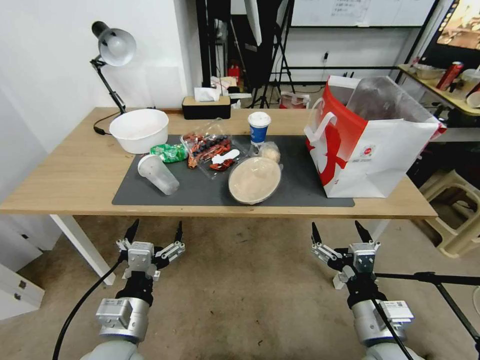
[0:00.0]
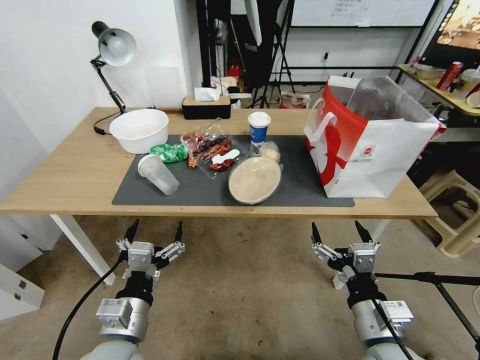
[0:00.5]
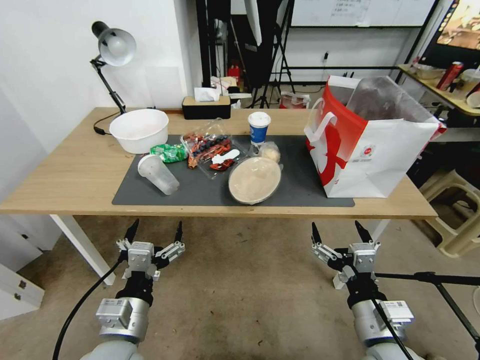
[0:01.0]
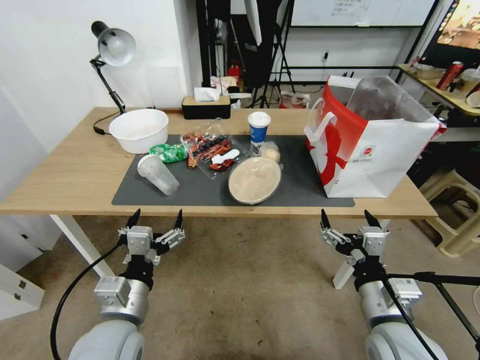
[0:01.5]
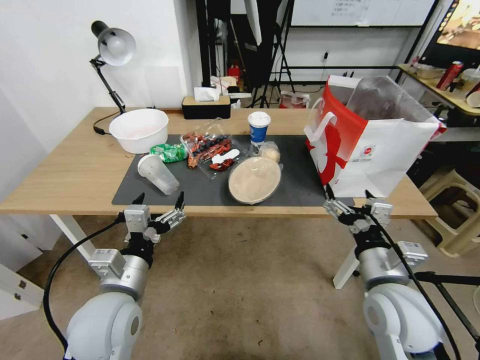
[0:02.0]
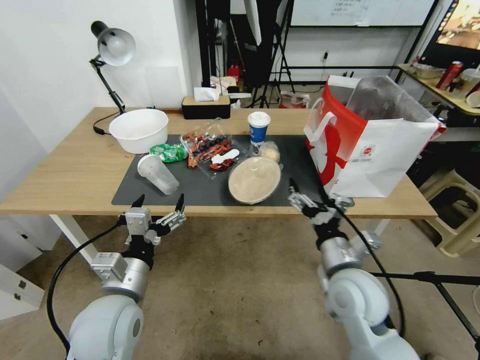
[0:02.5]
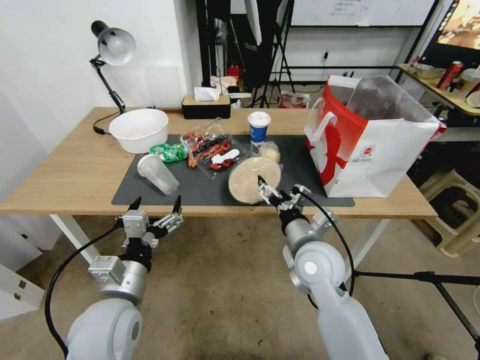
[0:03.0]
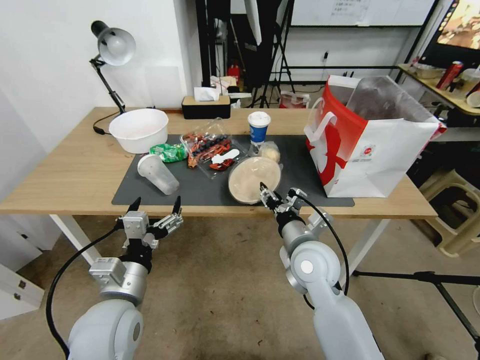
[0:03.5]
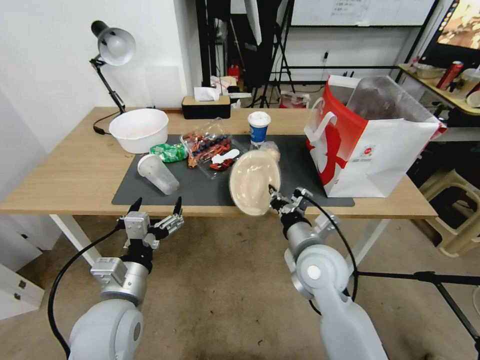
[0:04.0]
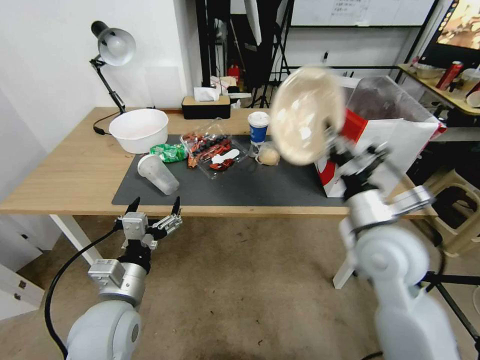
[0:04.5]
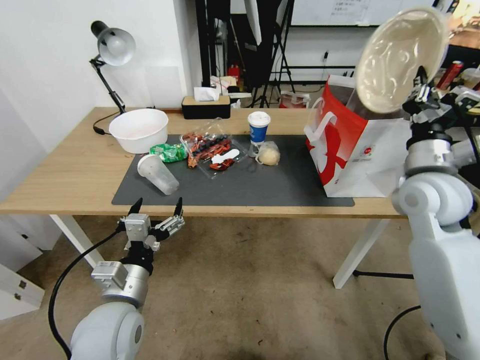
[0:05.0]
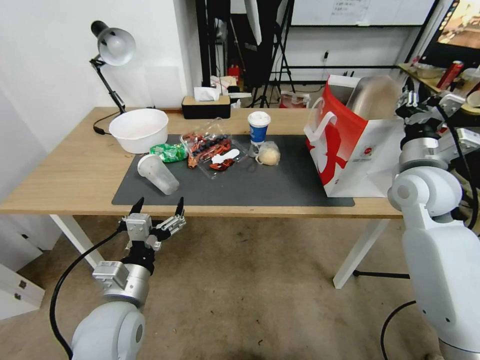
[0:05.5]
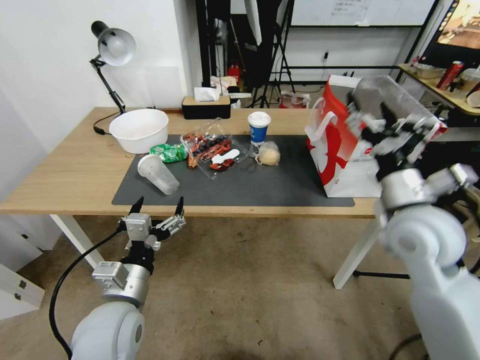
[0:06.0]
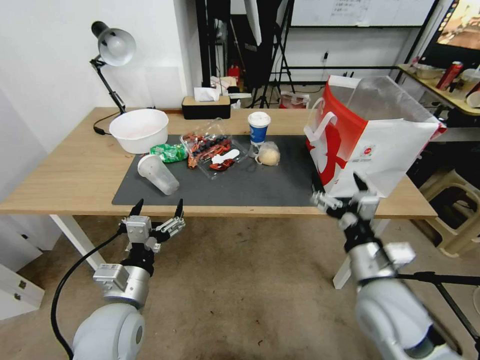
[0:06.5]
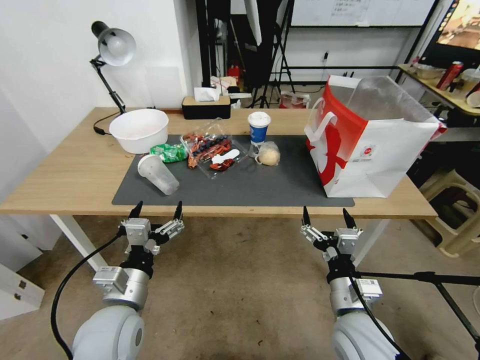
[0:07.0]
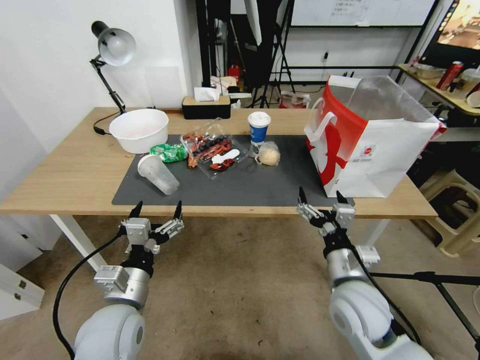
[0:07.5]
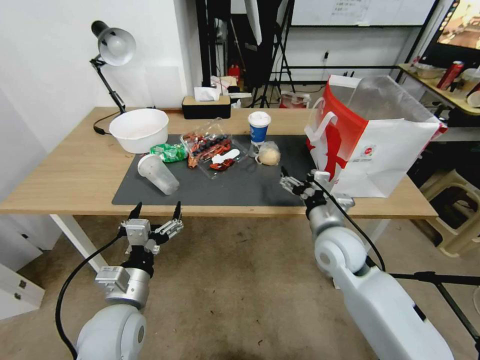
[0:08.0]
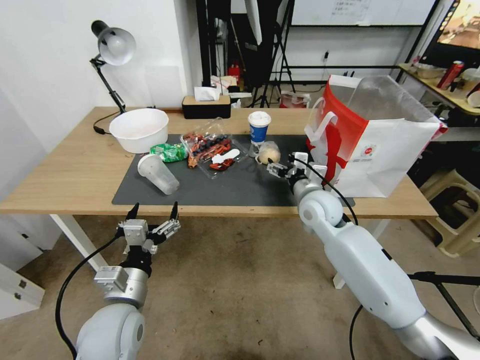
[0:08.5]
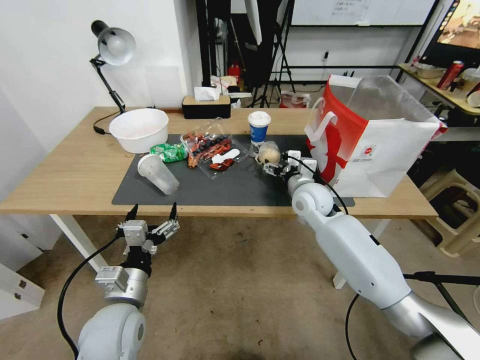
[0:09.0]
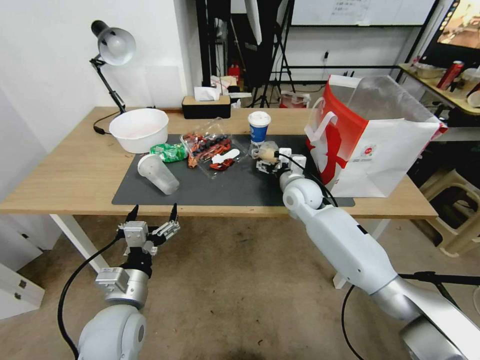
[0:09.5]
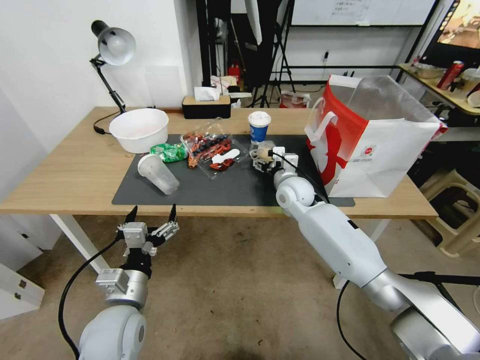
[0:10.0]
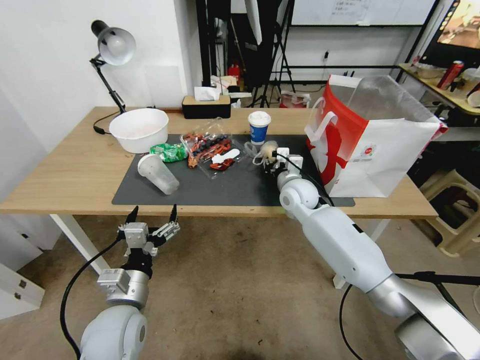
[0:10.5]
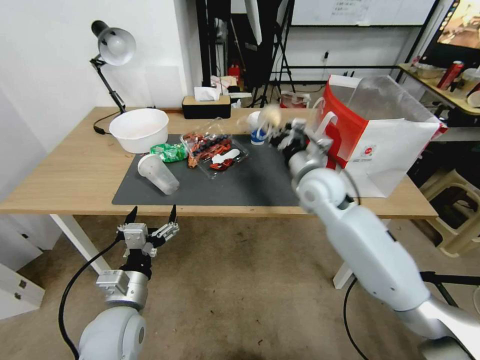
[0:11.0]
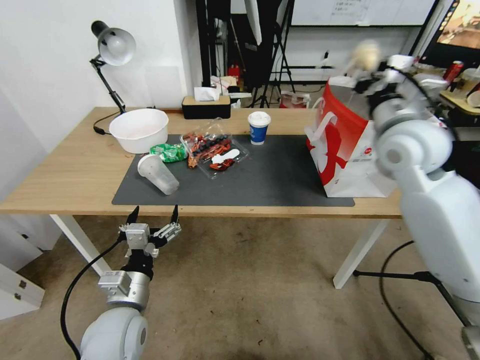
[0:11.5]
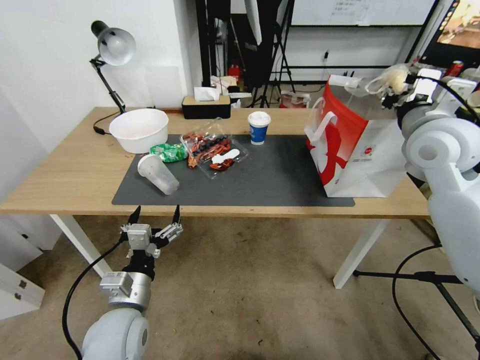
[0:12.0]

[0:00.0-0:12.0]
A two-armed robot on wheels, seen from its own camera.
0:02.0 to 0:04.0: The right gripper heads to the left and forward, covering roughly 15 cm, and closes up.
0:04.0 to 0:06.0: The right gripper goes some 20 cm to the right and upward, and opens its fingers.
0:06.0 to 0:08.0: The right gripper goes roughly 15 cm downward and to the left.
0:08.0 to 0:10.0: The right gripper moves forward, some 15 cm.
0:10.0 to 0:12.0: The right gripper travels upward, to the right and backward by some 30 cm, and closes.

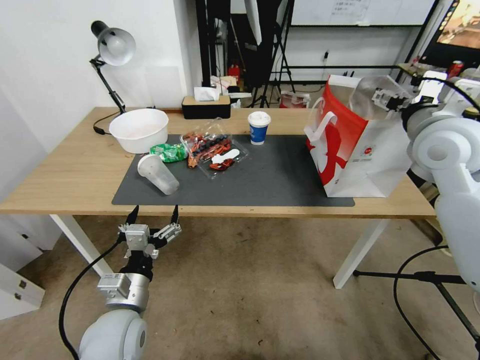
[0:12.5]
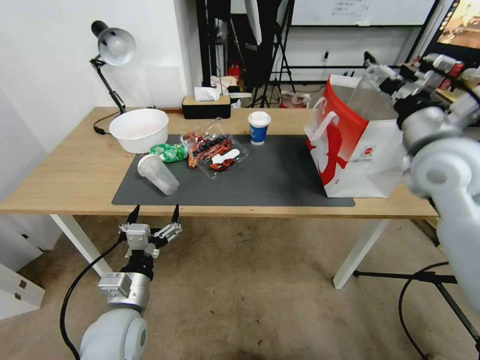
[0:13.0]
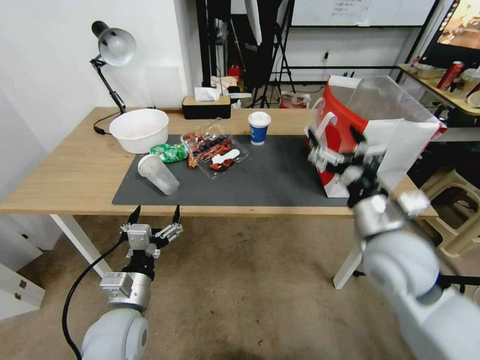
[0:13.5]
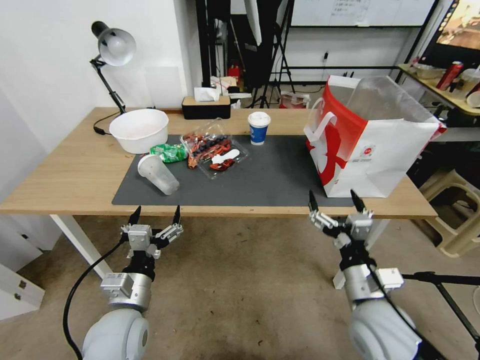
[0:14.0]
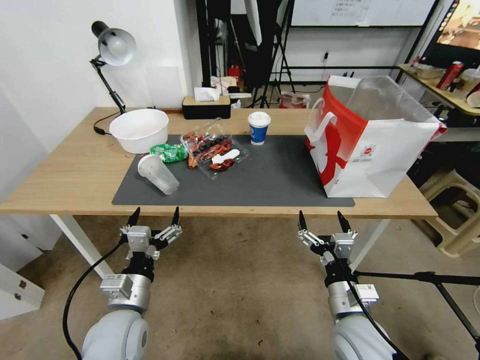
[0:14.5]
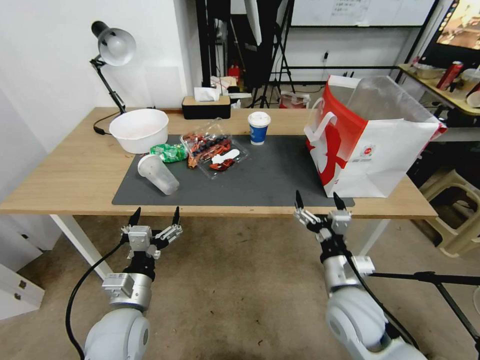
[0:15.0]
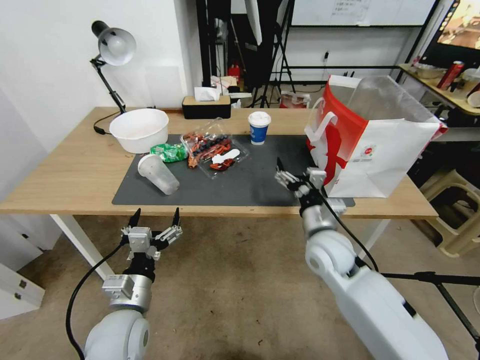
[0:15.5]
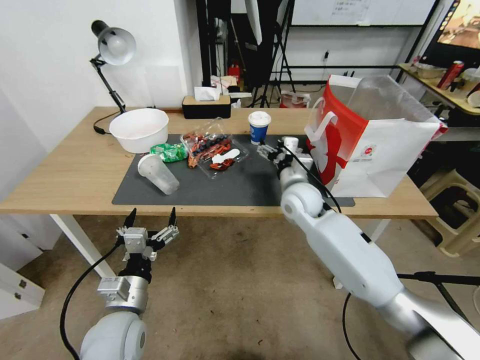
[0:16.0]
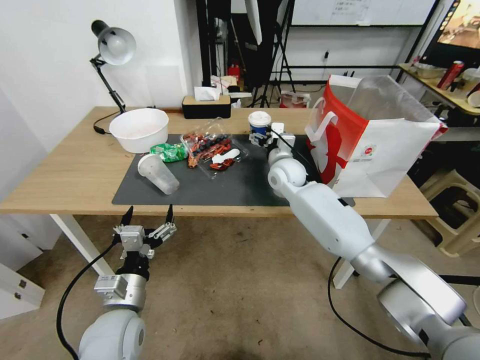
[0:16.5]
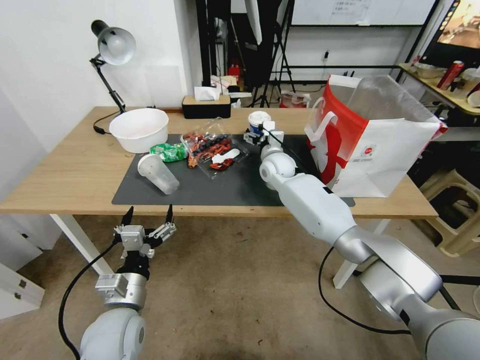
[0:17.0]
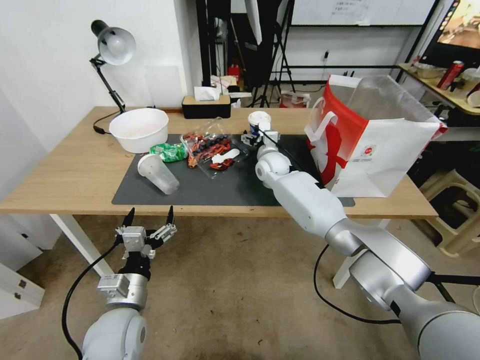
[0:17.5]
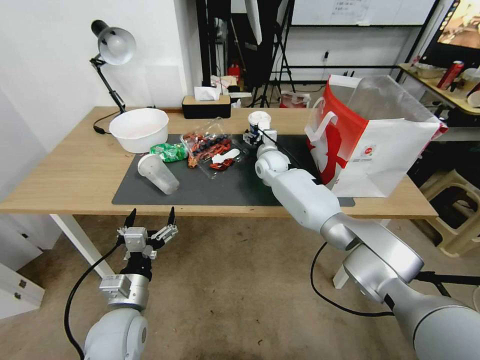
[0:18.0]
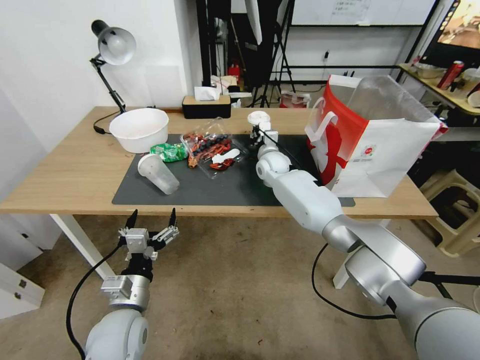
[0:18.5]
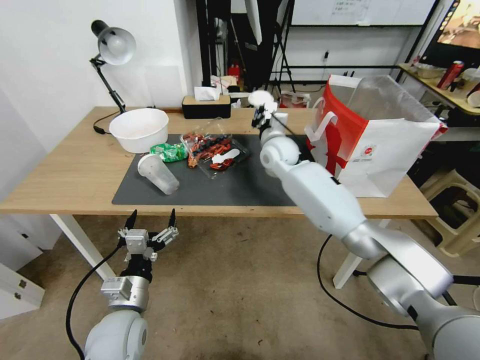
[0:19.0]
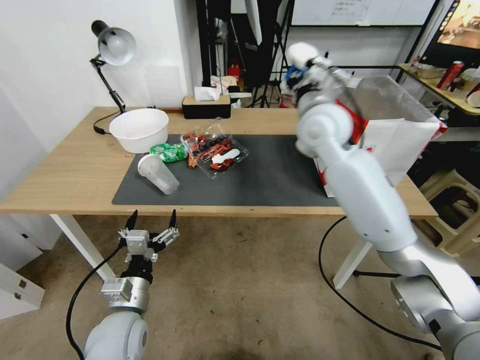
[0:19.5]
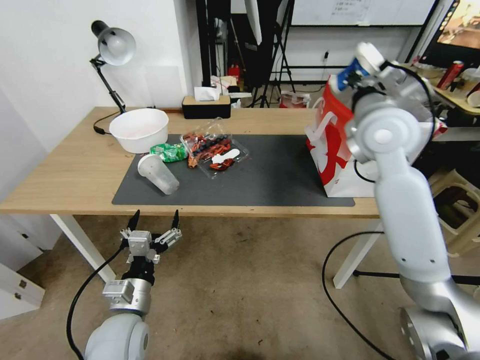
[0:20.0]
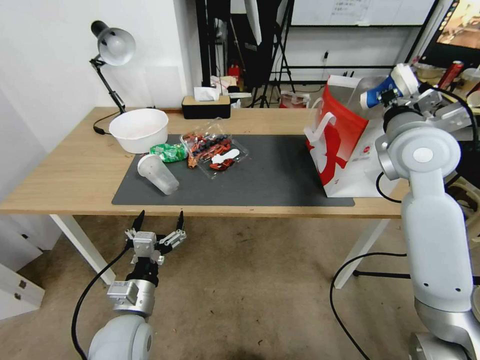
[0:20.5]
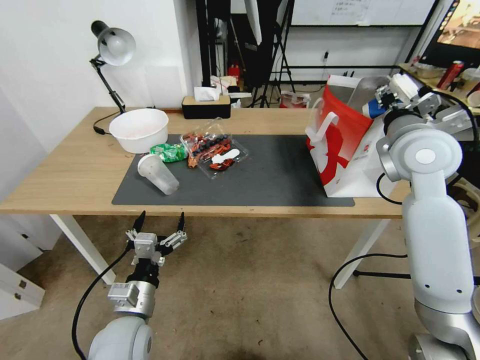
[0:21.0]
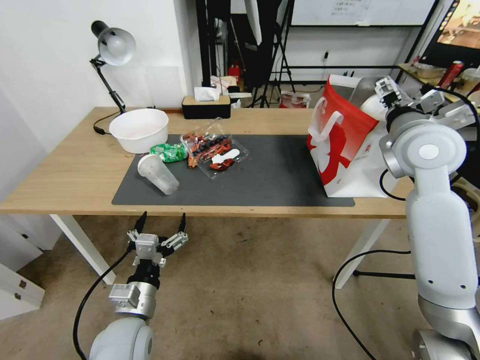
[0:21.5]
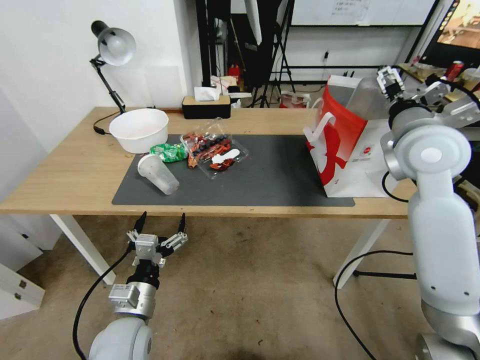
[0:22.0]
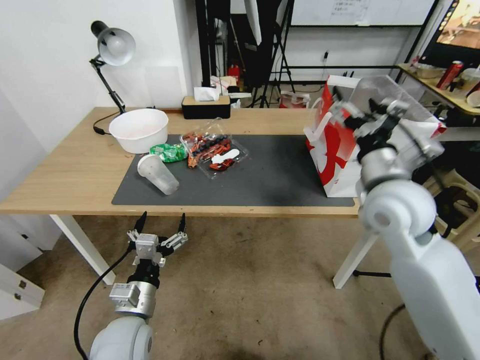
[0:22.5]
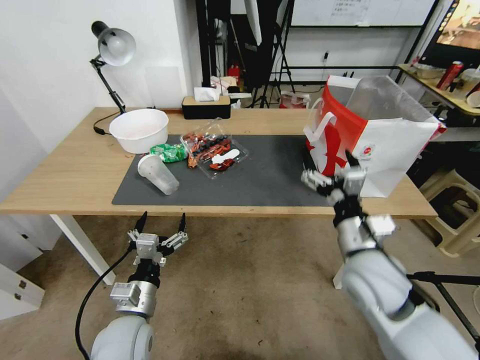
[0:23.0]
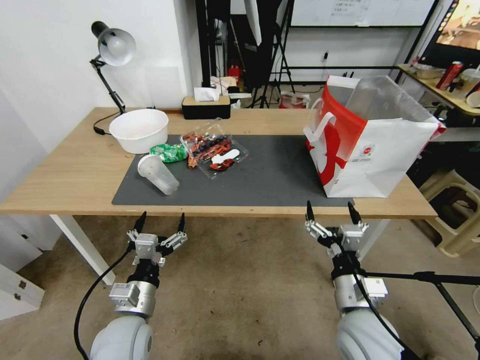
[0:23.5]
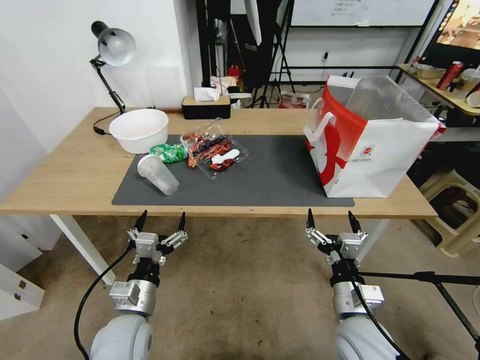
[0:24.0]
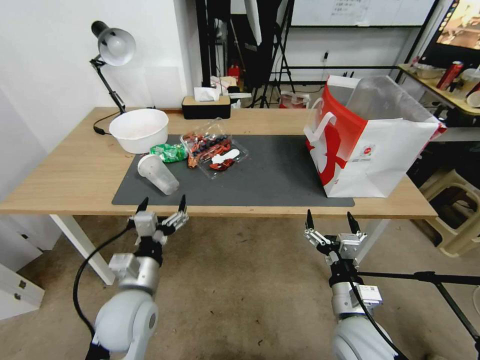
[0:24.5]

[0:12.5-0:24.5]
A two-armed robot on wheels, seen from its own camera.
0:12.5 to 0:14.5: The right gripper heads downward and backward, covering approximately 35 cm.
0:14.5 to 0:16.5: The right gripper shifts about 35 cm forward.
0:16.5 to 0:18.5: The right gripper goes some 5 cm forward, and closes its fingers.
0:18.5 to 0:20.5: The right gripper travels upward, backward and to the right by approximately 35 cm.
0:20.5 to 0:22.5: The right gripper moves backward, downward and to the left, approximately 10 cm, and opens its fingers.
0:22.5 to 0:24.5: The right gripper goes some 25 cm downward and backward; the left gripper moves some 5 cm.

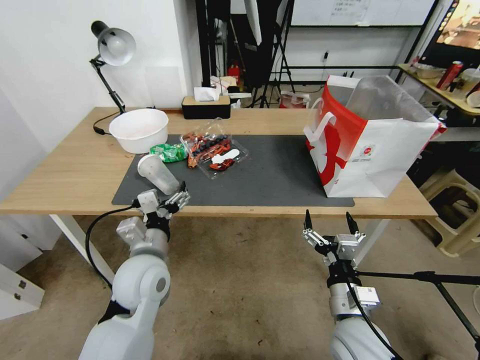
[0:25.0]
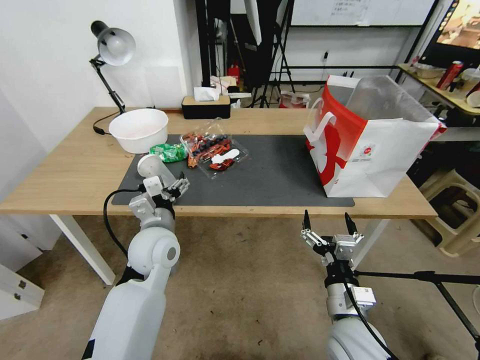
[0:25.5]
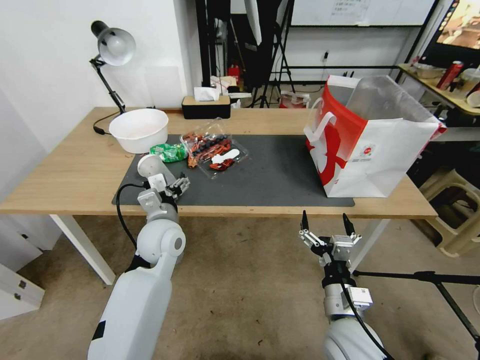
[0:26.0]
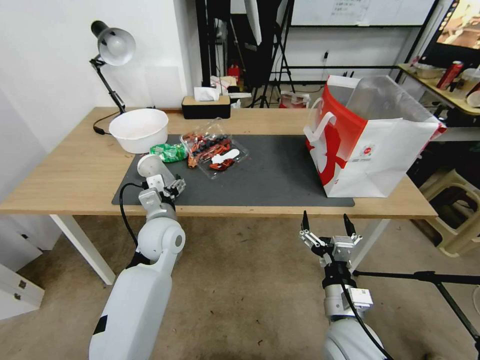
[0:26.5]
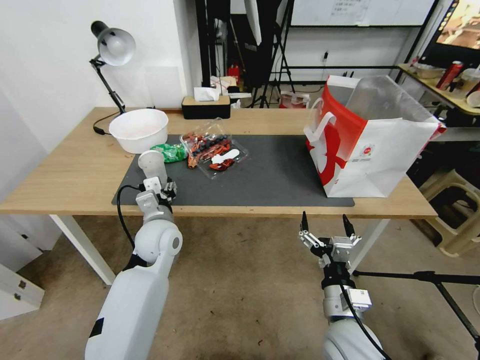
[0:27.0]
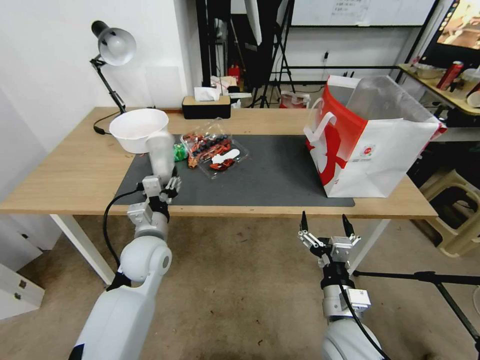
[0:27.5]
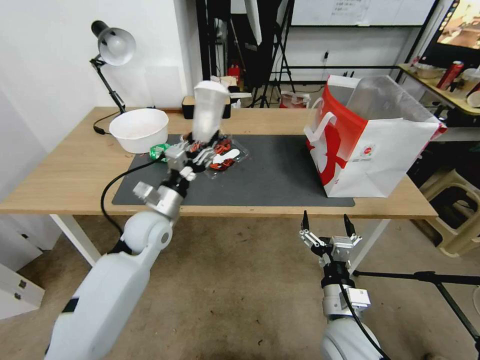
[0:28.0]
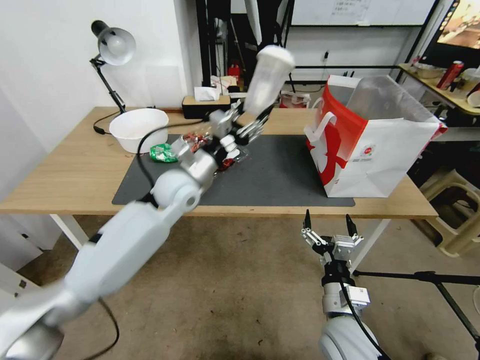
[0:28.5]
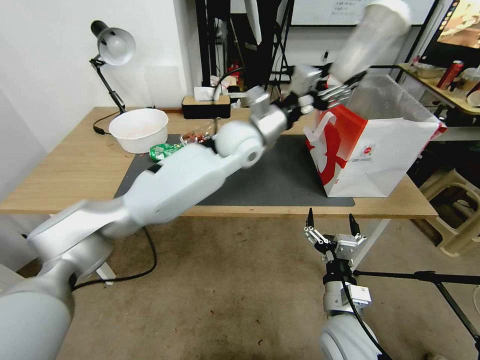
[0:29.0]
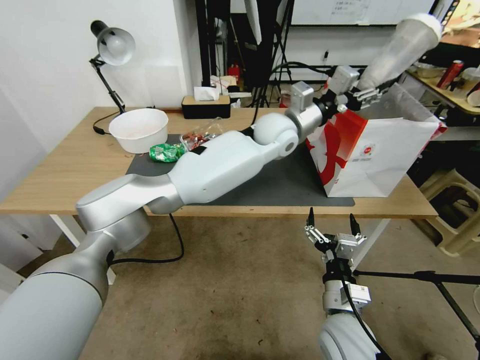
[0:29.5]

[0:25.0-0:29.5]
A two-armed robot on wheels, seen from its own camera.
0:25.0 to 0:27.0: The left gripper moves forward, roughly 10 cm, and closes its fingers.
0:27.0 to 0:29.5: The left gripper heads to the right, upward and forward, covering roughly 35 cm.
